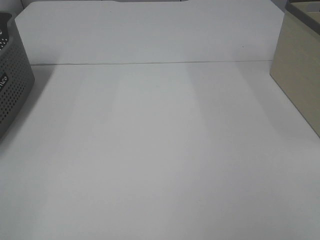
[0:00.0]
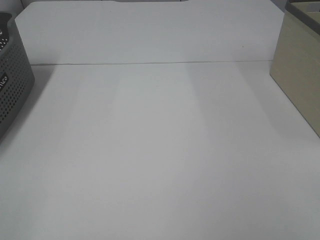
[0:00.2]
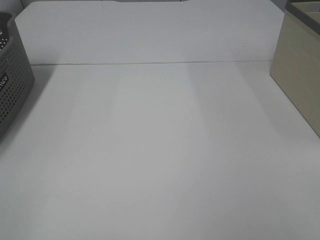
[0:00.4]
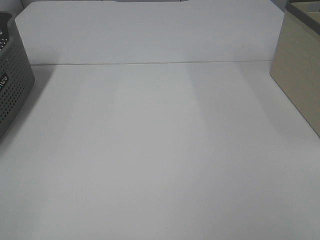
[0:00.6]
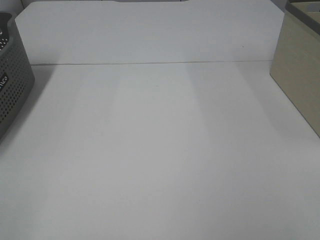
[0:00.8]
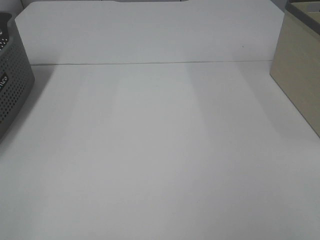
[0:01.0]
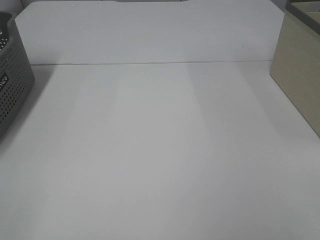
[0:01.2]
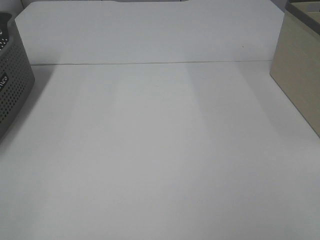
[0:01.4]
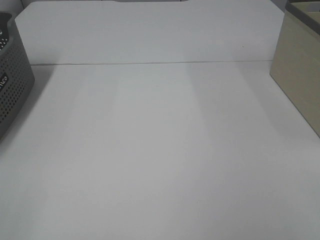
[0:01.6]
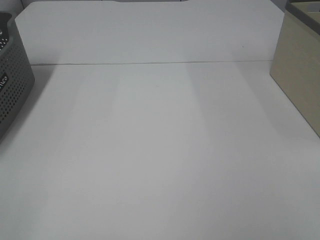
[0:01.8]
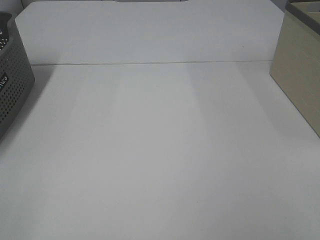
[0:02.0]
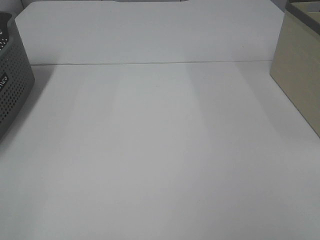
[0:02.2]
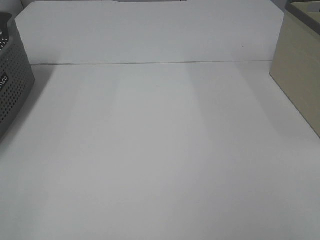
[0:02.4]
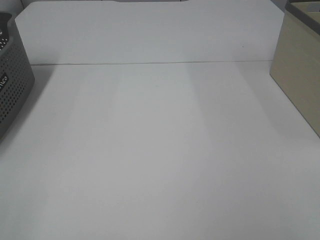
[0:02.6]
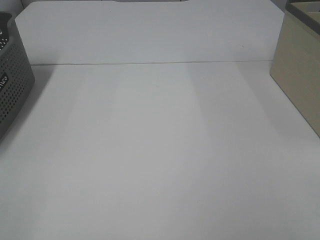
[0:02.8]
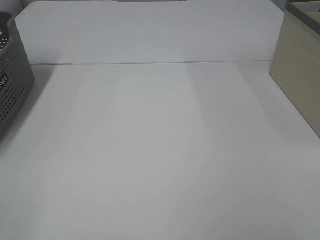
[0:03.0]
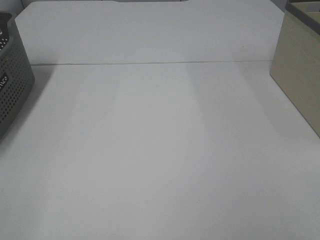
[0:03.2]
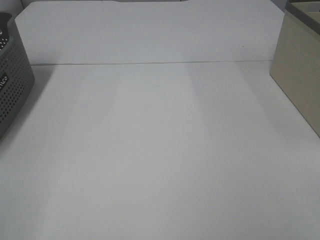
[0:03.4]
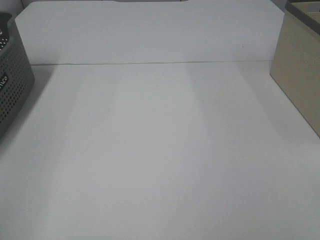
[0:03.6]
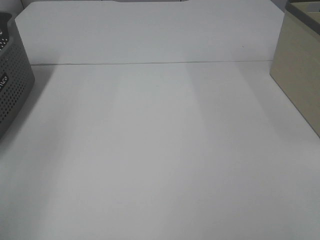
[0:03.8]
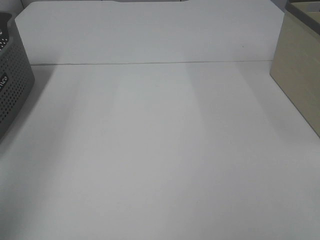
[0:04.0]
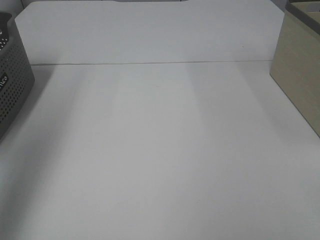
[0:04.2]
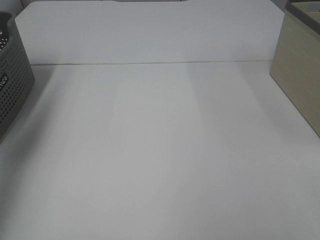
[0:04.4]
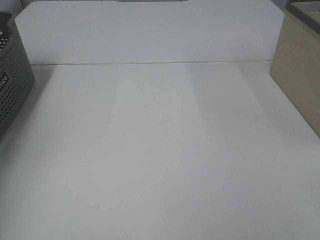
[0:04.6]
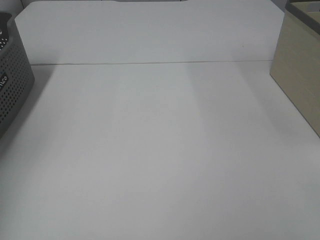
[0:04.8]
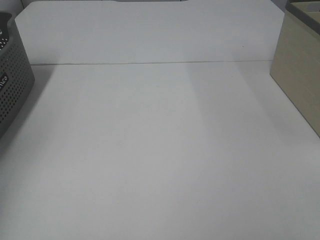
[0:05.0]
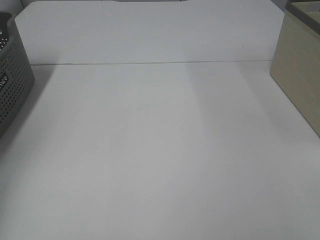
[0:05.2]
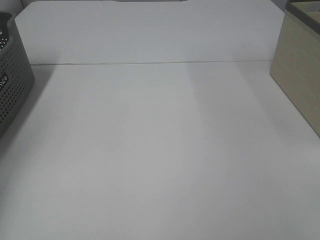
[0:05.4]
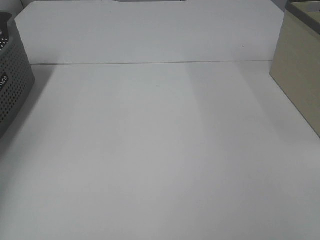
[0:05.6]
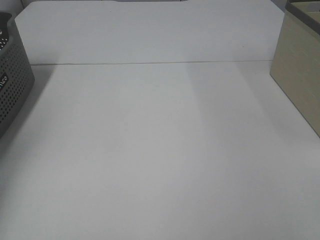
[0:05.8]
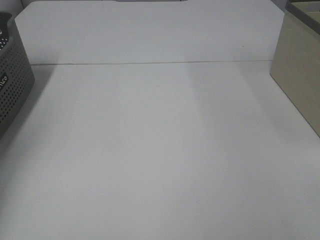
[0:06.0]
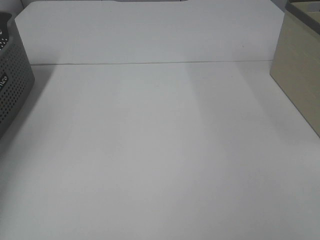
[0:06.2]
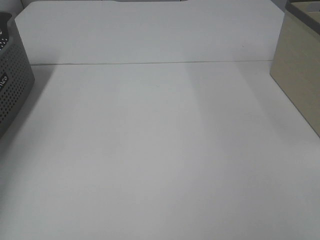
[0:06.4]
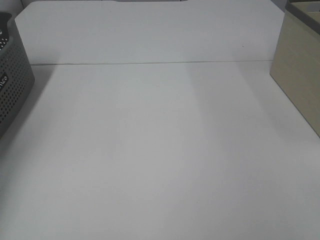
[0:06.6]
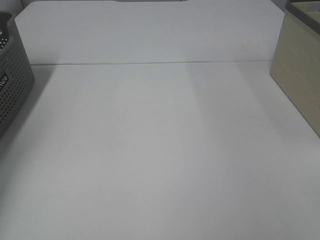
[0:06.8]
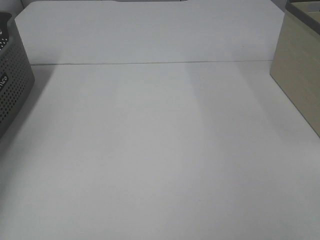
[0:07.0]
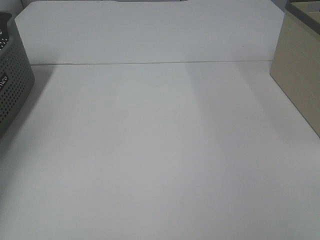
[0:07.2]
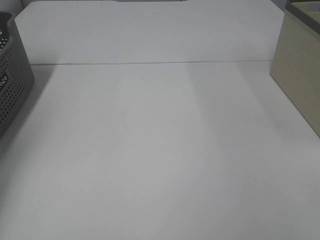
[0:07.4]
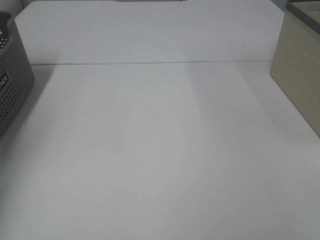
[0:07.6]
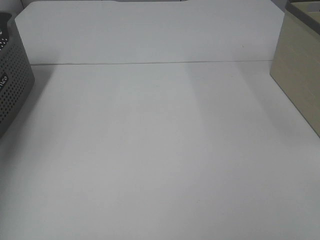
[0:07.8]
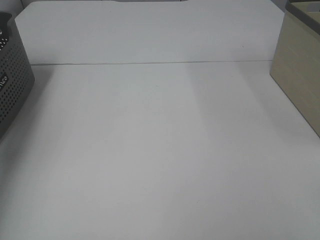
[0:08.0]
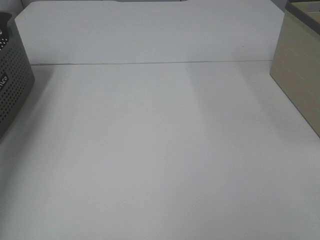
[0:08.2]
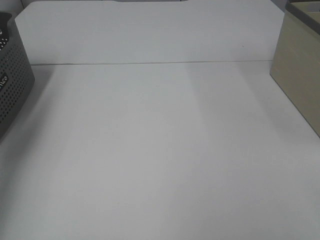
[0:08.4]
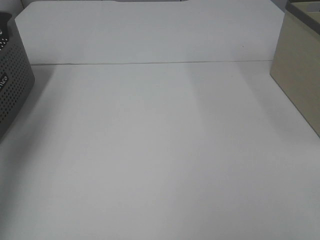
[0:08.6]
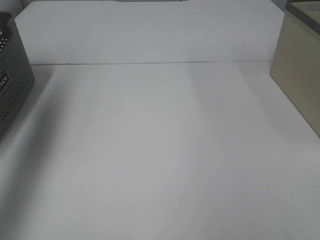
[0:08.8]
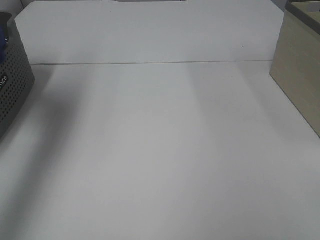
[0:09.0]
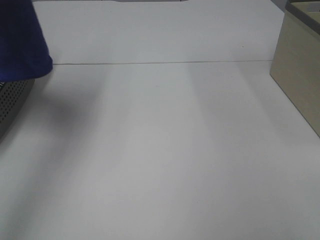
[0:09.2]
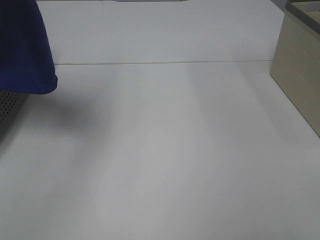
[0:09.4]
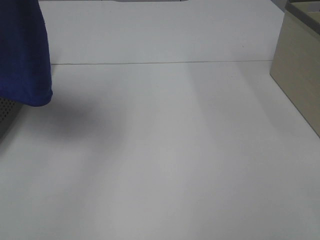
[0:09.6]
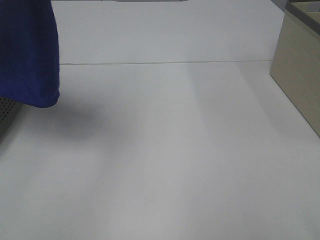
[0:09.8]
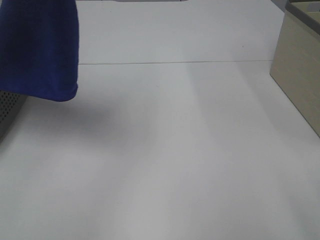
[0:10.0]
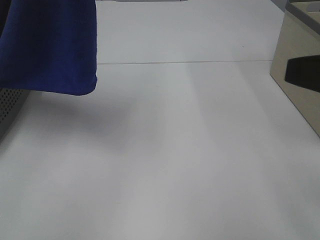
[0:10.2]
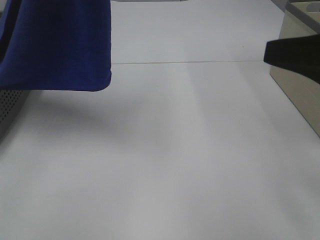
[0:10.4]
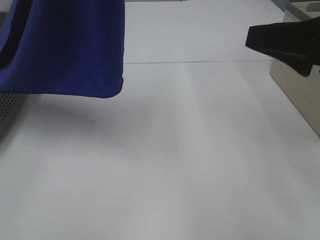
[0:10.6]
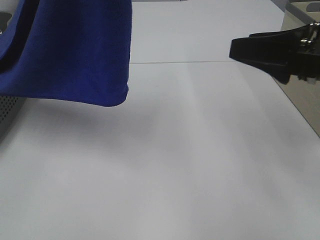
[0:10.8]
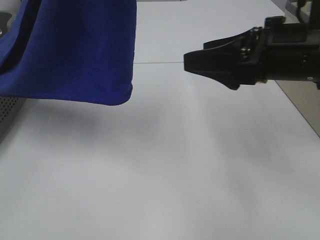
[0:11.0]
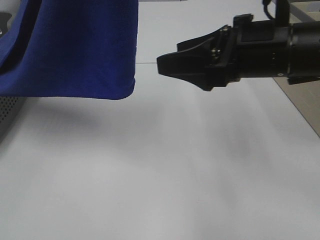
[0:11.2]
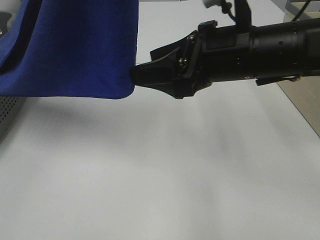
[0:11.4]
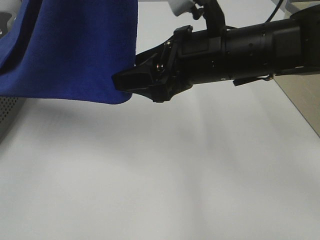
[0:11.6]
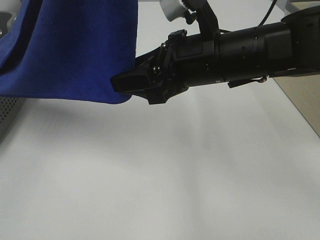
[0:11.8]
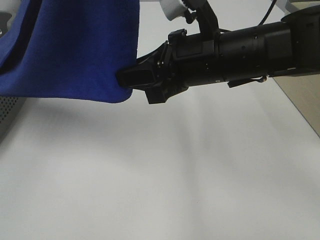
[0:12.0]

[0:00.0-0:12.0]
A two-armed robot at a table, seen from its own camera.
Task of the whole recording: Remove the towel and place it.
0:00.0 to 0:03.0: Both grippers stay put.
0:03.0 to 0:04.4: The left gripper moves forward and upward, some 35 cm.
0:04.4 to 0:06.0: The left gripper travels downward and forward by about 25 cm, and closes its fingers.
0:07.6 to 0:09.0: The left gripper heads upward, to the right and backward, covering some 35 cm.
0:09.0 to 0:10.4: The right gripper moves forward, roughly 15 cm; the left gripper moves to the right, approximately 15 cm.
0:10.4 to 0:12.0: The right gripper shifts roughly 20 cm to the left and forward, and closes.

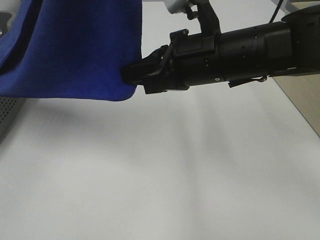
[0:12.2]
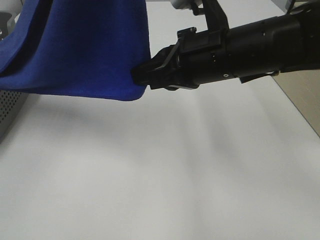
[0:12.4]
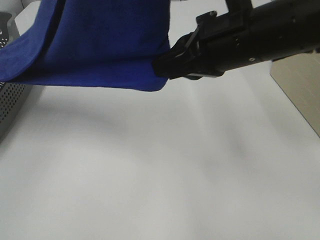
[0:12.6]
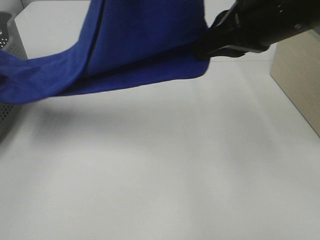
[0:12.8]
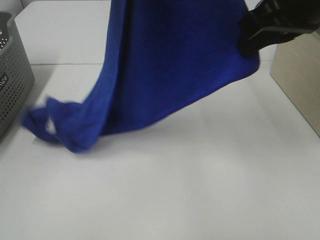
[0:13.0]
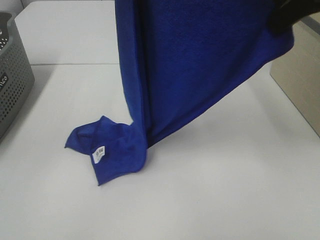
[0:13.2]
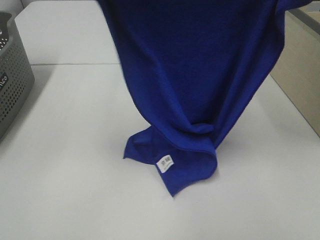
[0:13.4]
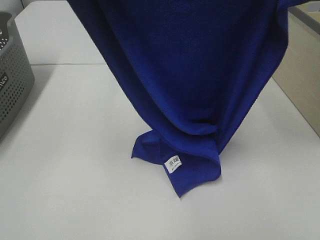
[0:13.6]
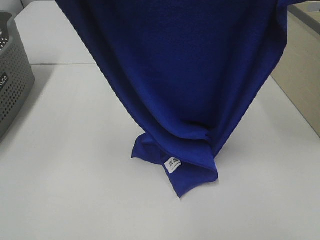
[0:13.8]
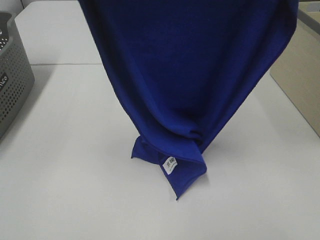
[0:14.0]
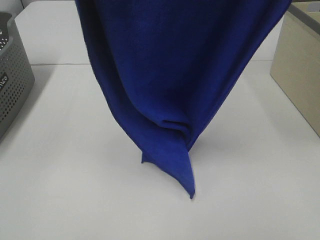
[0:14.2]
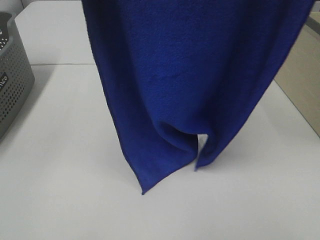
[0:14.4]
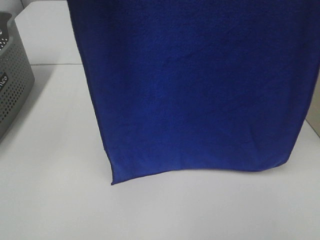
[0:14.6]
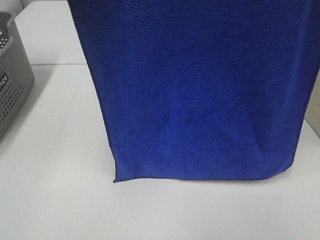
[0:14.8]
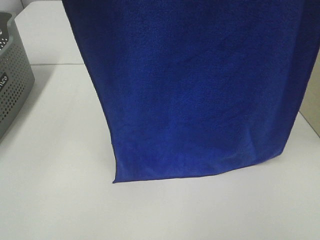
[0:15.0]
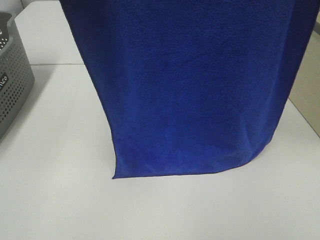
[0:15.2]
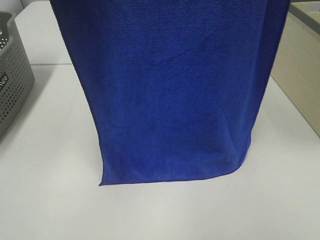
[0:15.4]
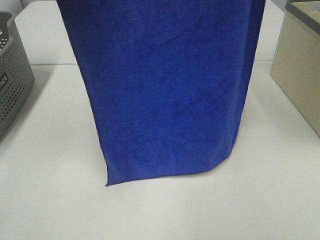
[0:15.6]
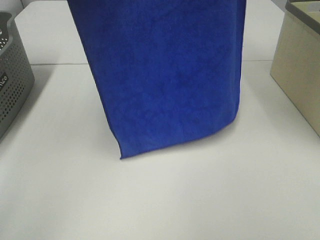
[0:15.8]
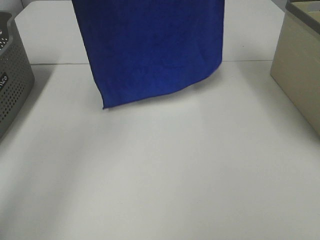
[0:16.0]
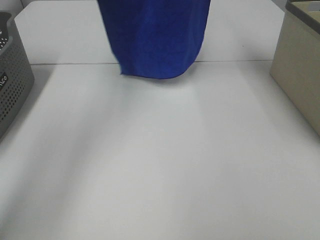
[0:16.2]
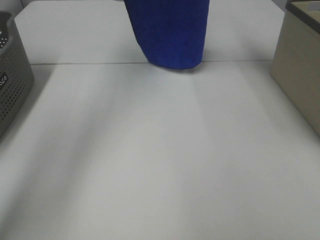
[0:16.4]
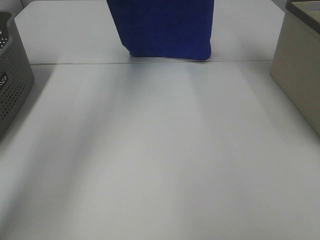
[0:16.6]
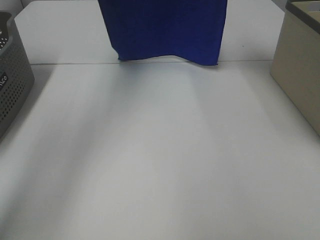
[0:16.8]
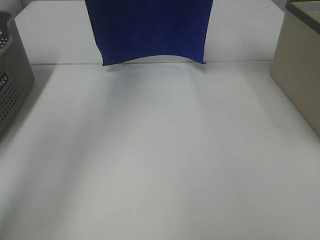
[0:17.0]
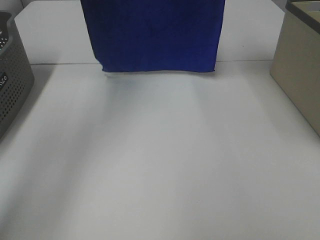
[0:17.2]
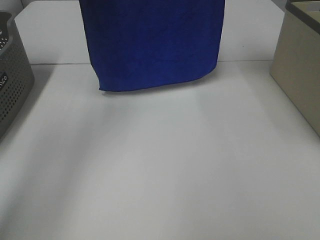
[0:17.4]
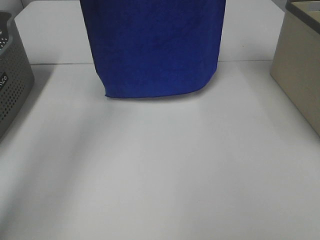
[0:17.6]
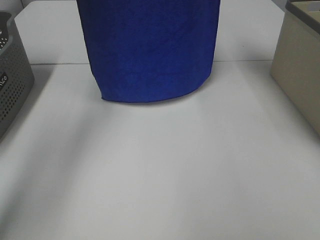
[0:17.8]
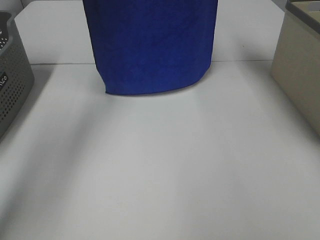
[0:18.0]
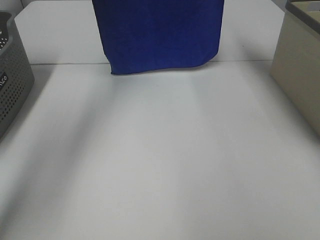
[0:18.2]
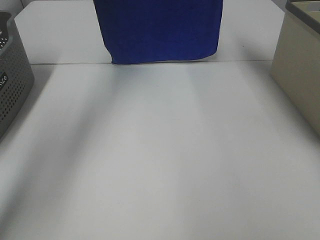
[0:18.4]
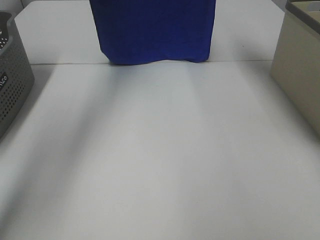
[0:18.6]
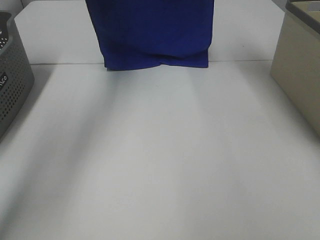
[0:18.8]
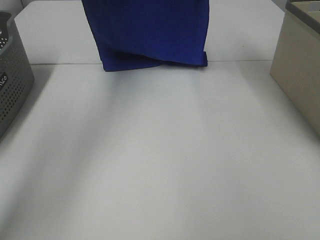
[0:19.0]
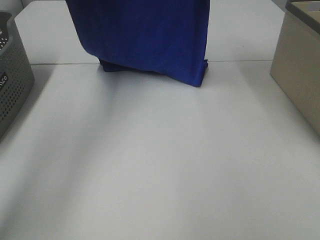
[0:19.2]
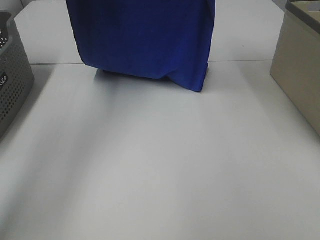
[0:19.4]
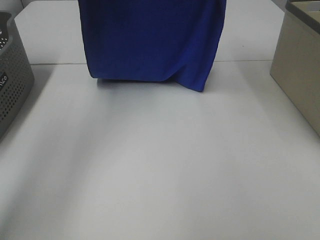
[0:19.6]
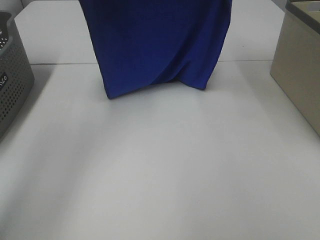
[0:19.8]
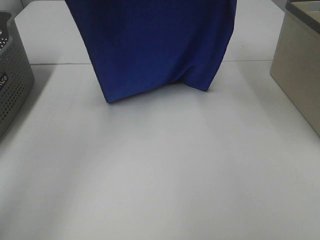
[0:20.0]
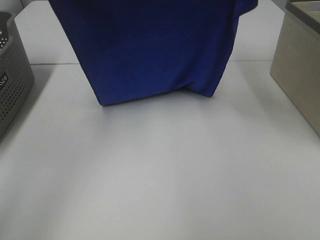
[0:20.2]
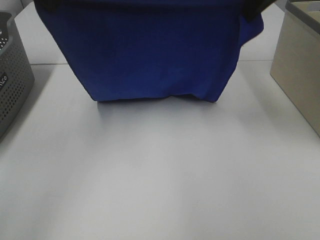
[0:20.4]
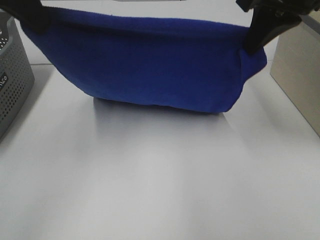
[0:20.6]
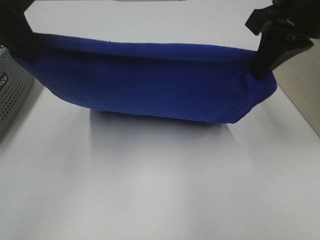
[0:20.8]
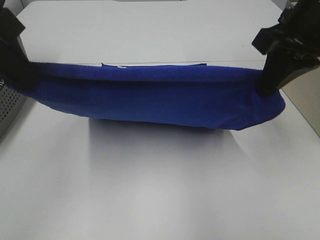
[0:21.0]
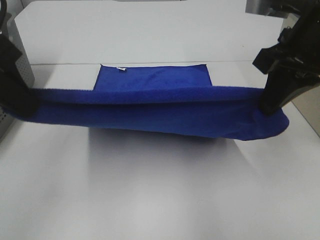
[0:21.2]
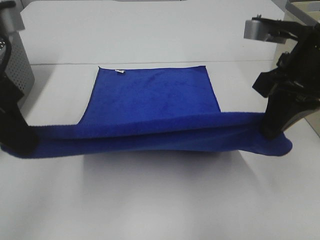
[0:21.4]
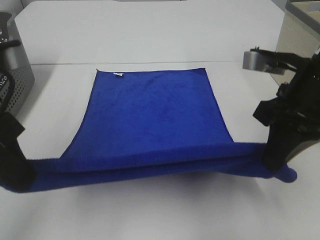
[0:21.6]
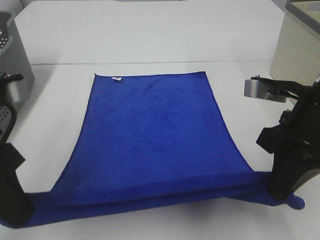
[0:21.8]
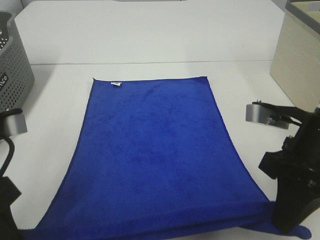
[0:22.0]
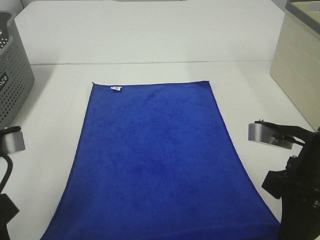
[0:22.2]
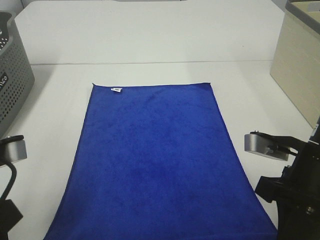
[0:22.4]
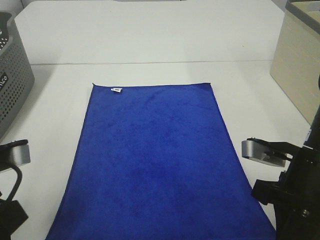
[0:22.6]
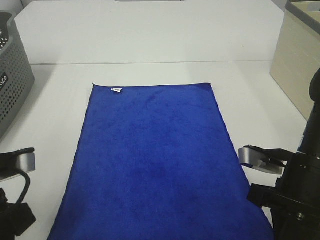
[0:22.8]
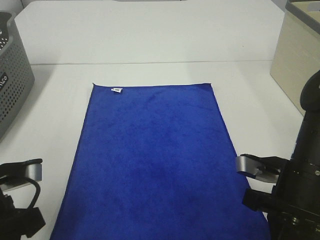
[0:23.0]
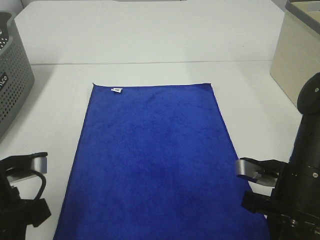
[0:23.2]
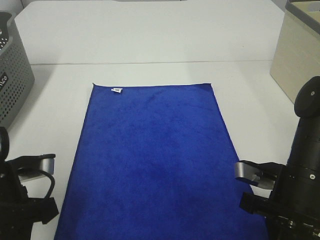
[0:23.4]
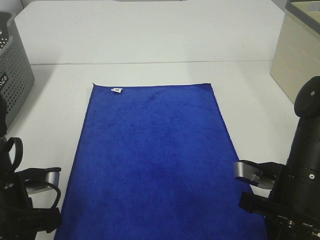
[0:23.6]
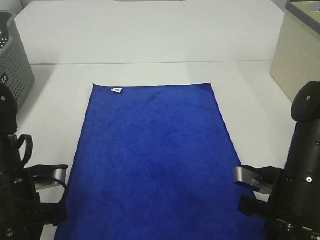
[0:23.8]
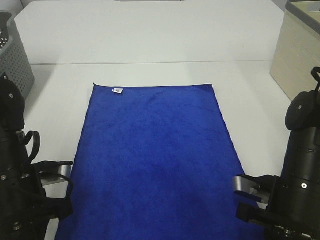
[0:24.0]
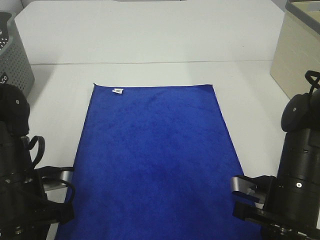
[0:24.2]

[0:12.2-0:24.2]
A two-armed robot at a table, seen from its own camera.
Task of the whole recording: Remove the towel and place it.
Step, 0:12.8 to 0:20.8: Left hand: spread the blue towel flat on the table.
Step, 0:12.8 to 0:20.8: Right hand: spread the blue towel flat on the table.
0:12.2 to 0:13.8: The right gripper shifts approximately 25 cm upward and to the right.
0:13.8 to 0:15.2: Both grippers travel together upward, approximately 10 cm.
0:15.2 to 0:16.6: The two grippers go approximately 25 cm forward.
0:16.6 to 0:18.2: The grippers make only small movements.
0:18.2 to 0:19.8: The right gripper heads backward, covering about 5 cm. The left gripper travels backward and downward by roughly 10 cm.
0:19.8 to 0:21.2: Both grippers move backward and downward, about 20 cm.
0:21.2 to 0:22.6: Both grippers travel together downward and backward, about 15 cm.
0:22.6 to 0:24.2: The left gripper travels downward and forward by about 10 cm, while the right gripper travels downward by roughly 5 cm.
